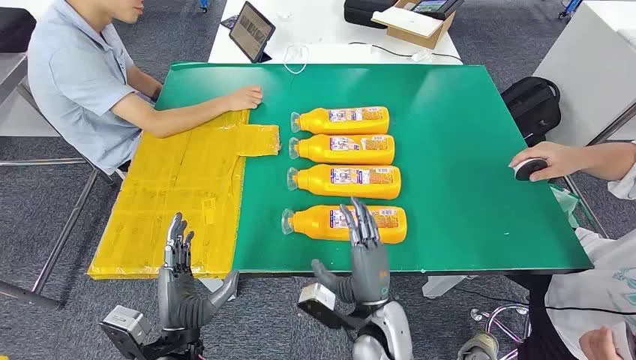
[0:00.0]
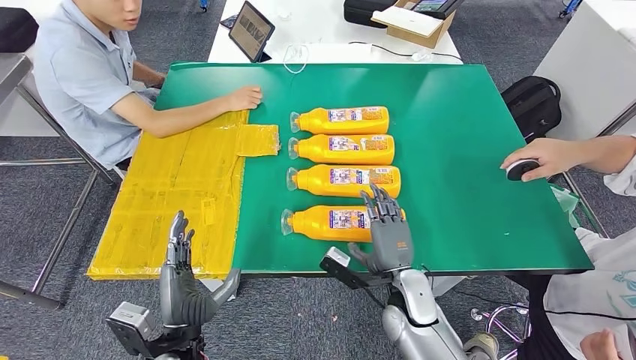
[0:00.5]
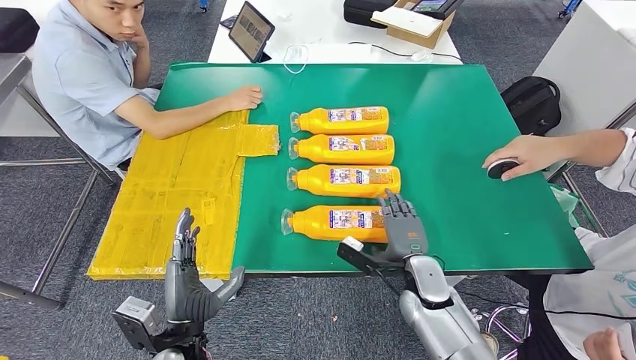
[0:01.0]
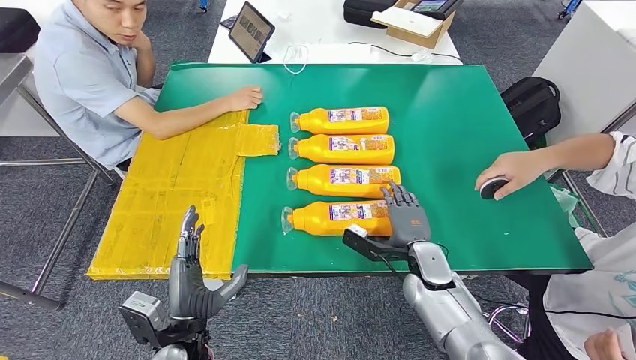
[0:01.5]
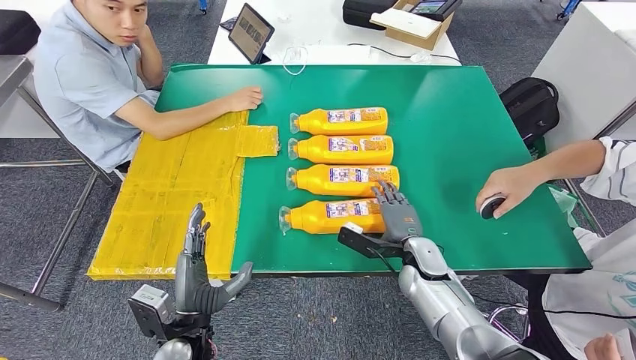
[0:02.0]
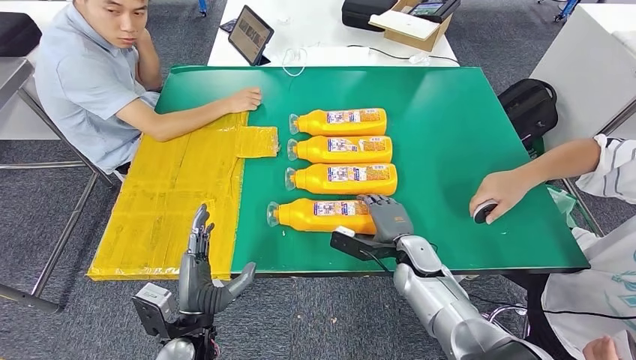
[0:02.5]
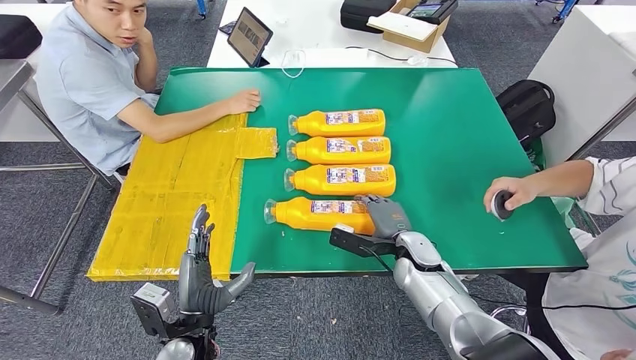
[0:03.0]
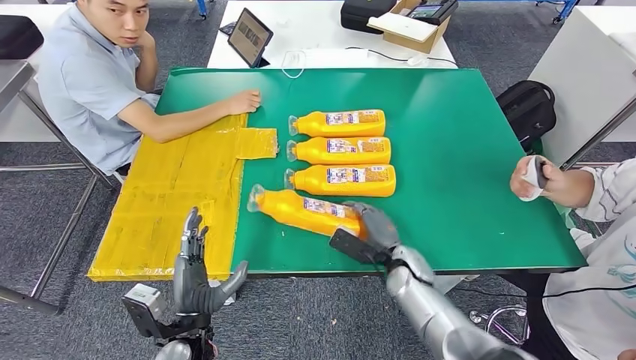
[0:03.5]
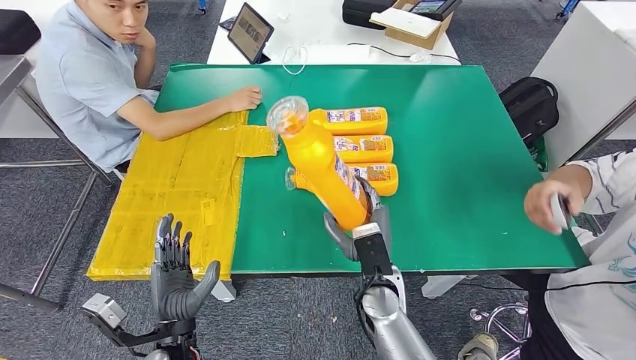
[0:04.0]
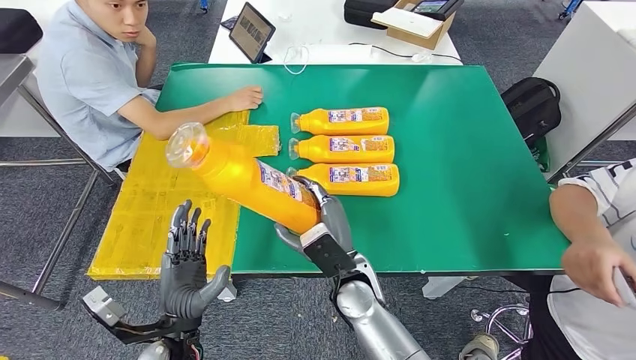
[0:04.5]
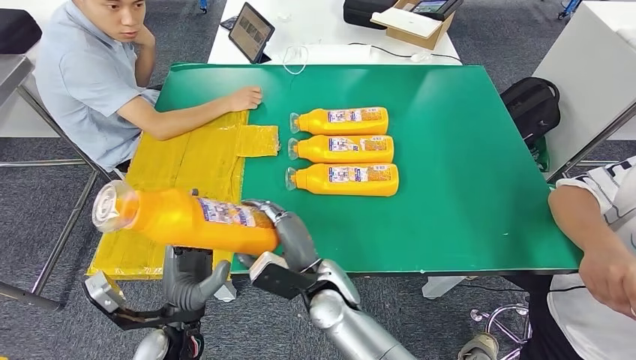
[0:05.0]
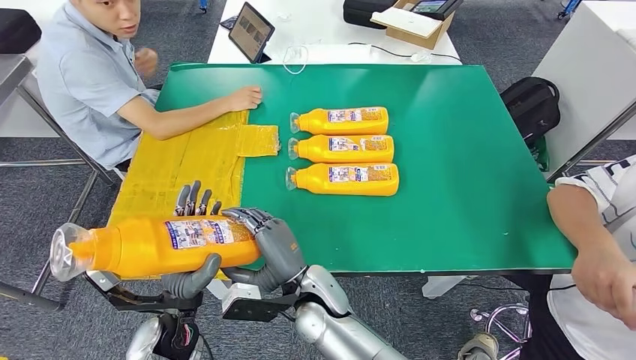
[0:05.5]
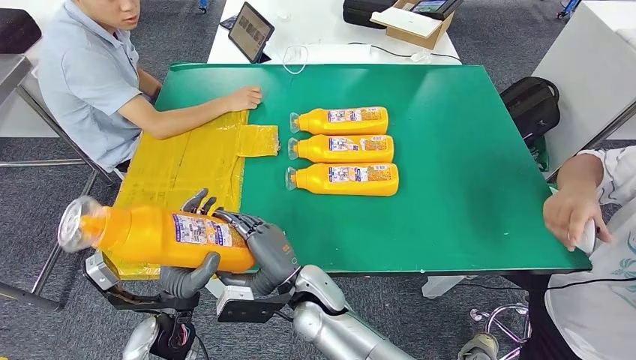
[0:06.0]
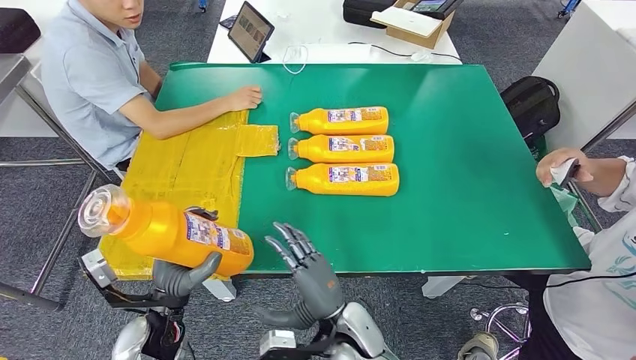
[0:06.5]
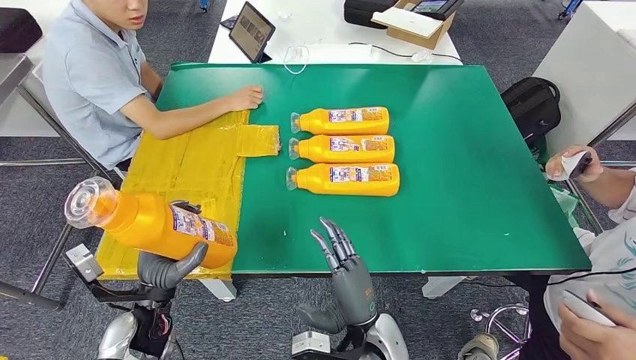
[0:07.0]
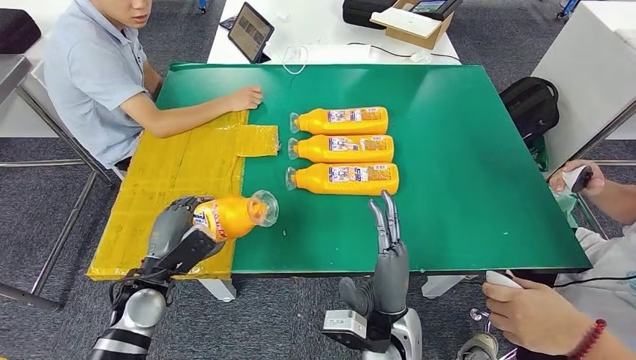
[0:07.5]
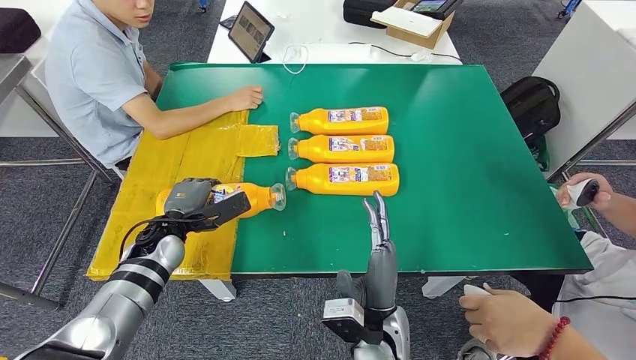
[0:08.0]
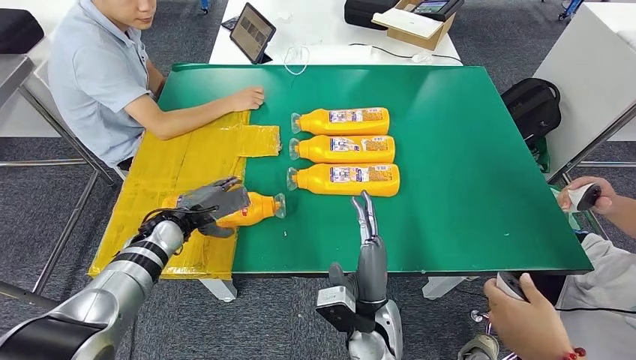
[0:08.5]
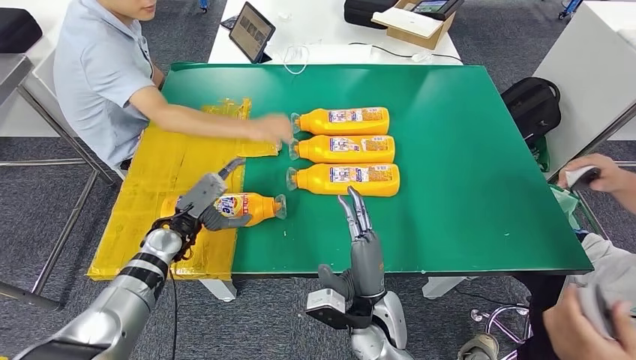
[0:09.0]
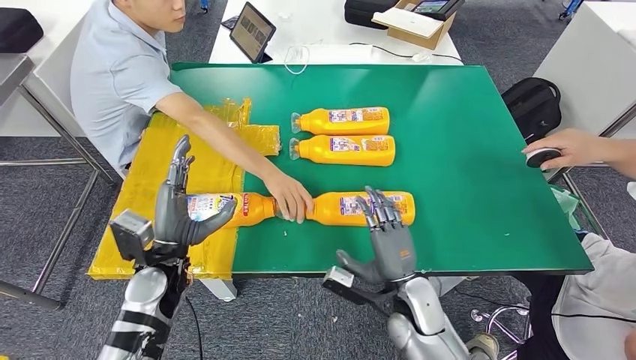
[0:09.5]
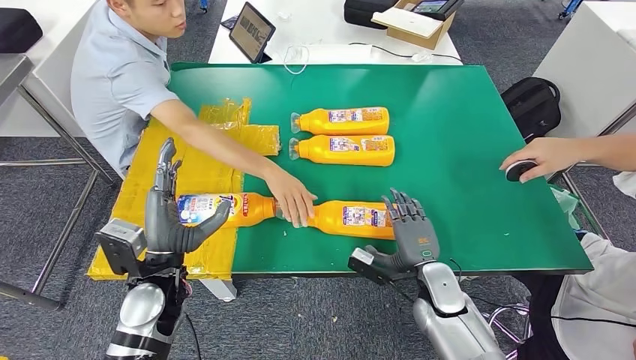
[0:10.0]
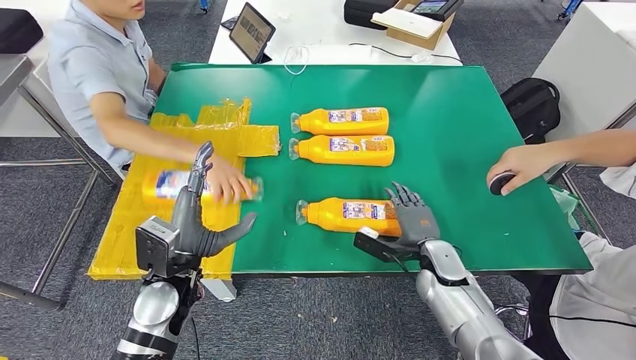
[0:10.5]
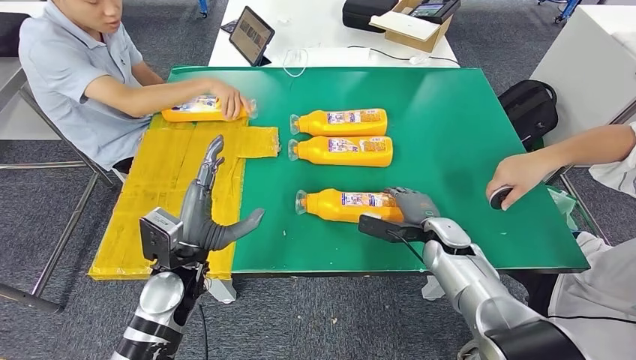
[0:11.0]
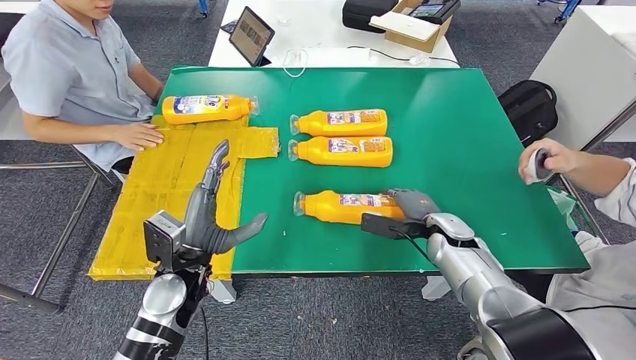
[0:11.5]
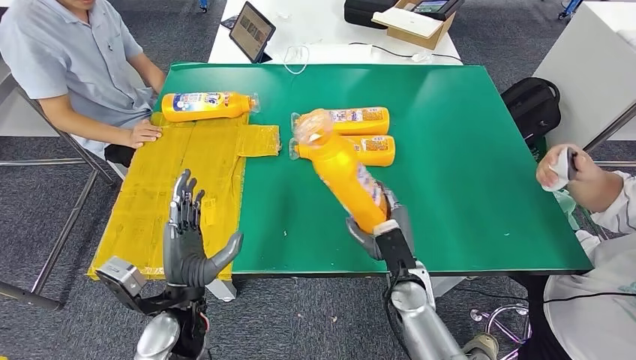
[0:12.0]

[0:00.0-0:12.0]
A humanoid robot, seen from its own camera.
Step, 0:00.0 to 0:06.0: Take the bottle from the table.
Step, 0:06.5 to 0:09.0: Flip the bottle to face forward.
0:04.0 to 0:06.0: The right hand shifts some 15 cm to the left.

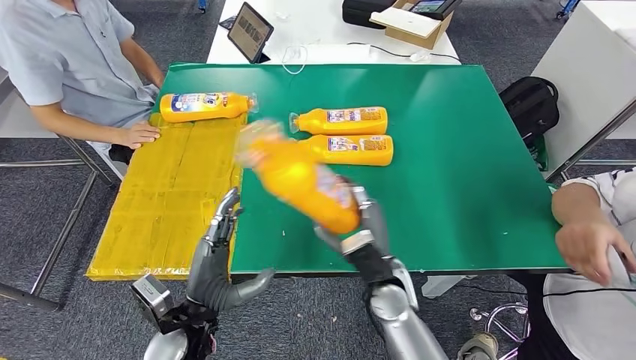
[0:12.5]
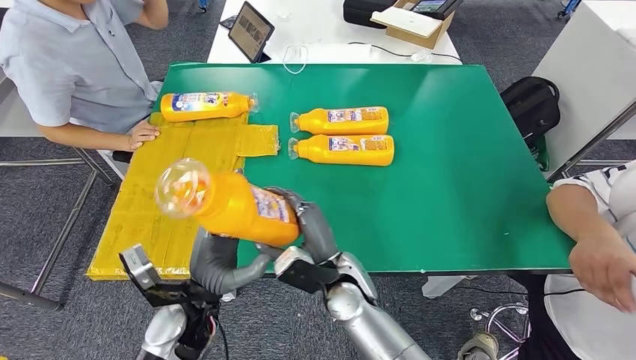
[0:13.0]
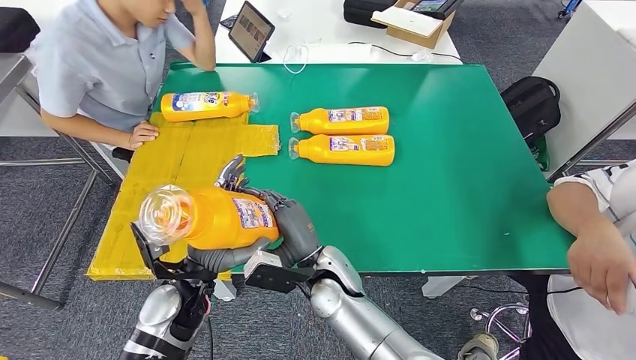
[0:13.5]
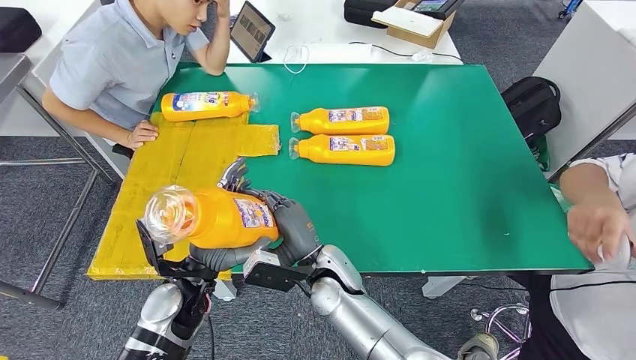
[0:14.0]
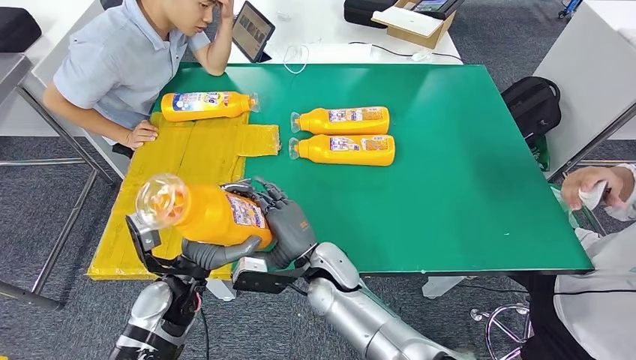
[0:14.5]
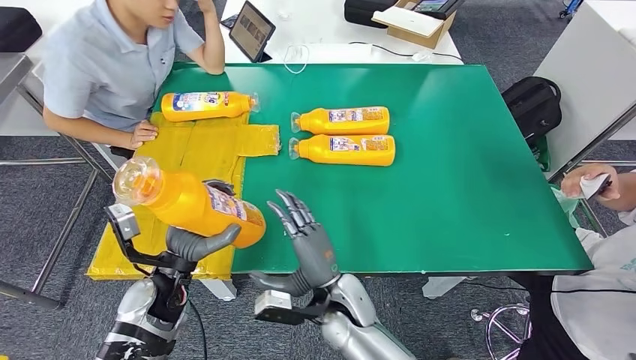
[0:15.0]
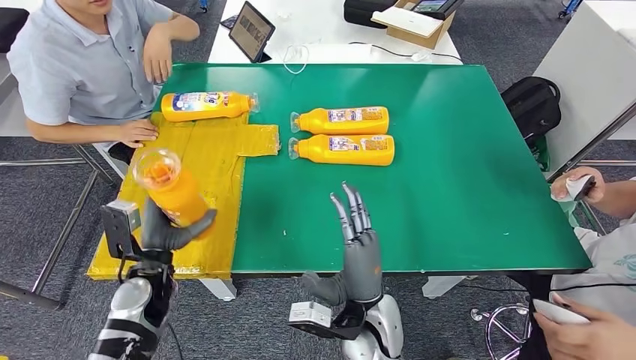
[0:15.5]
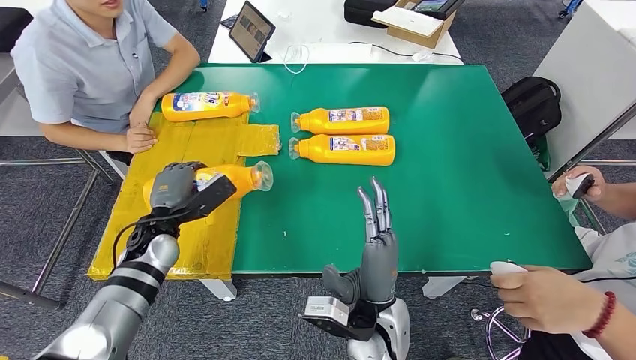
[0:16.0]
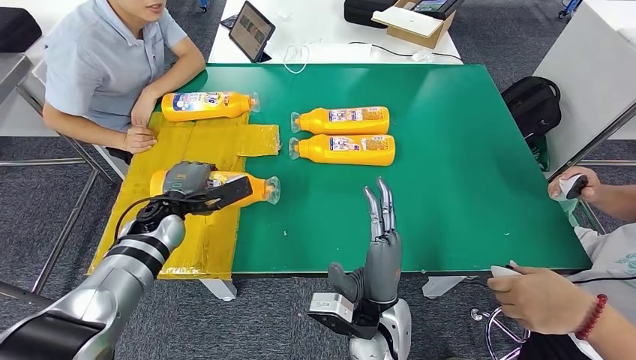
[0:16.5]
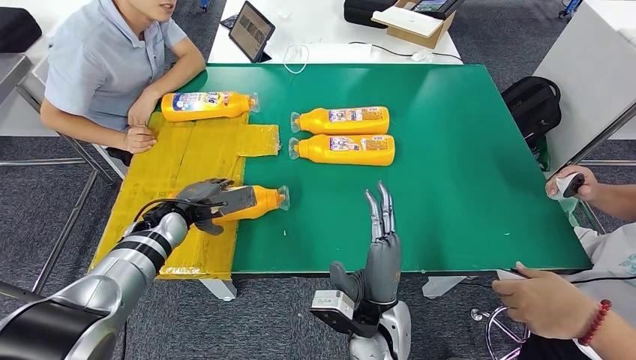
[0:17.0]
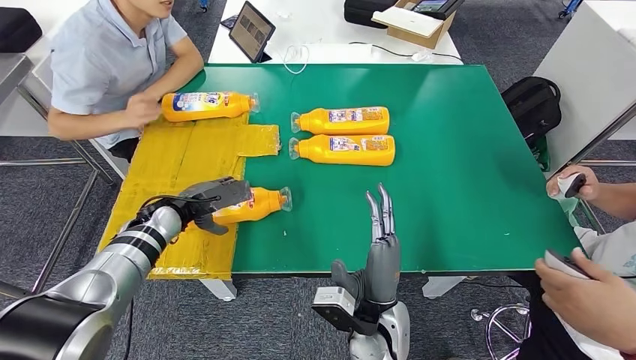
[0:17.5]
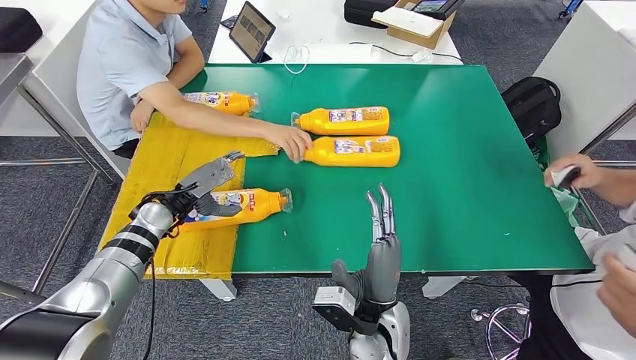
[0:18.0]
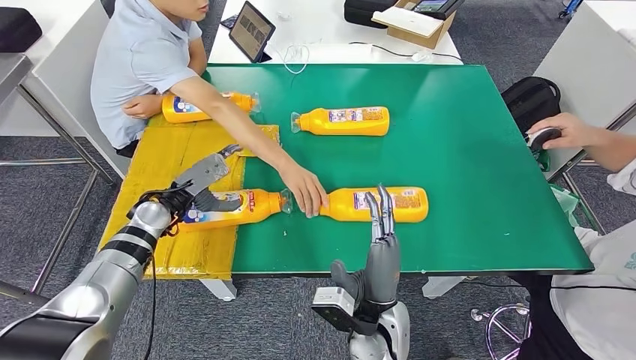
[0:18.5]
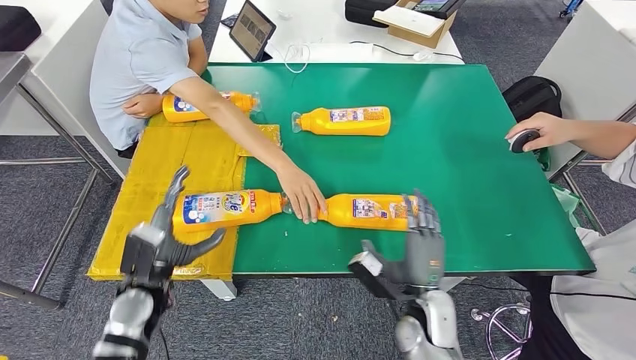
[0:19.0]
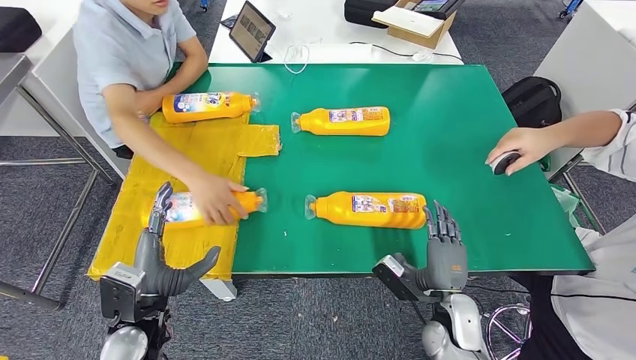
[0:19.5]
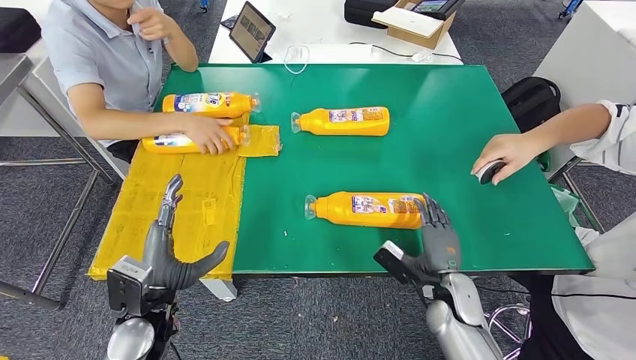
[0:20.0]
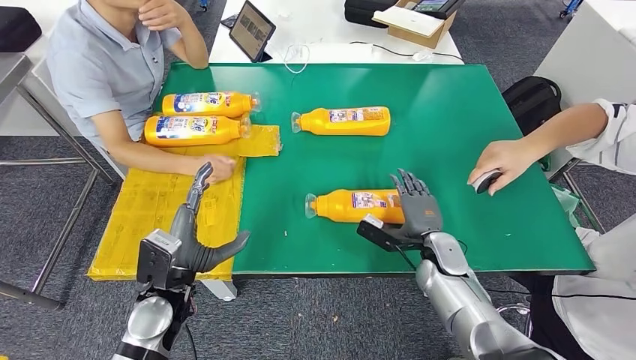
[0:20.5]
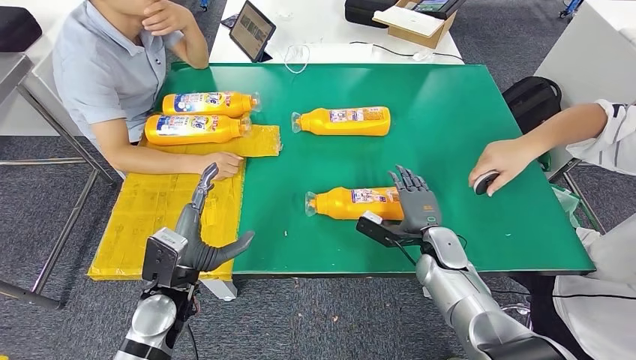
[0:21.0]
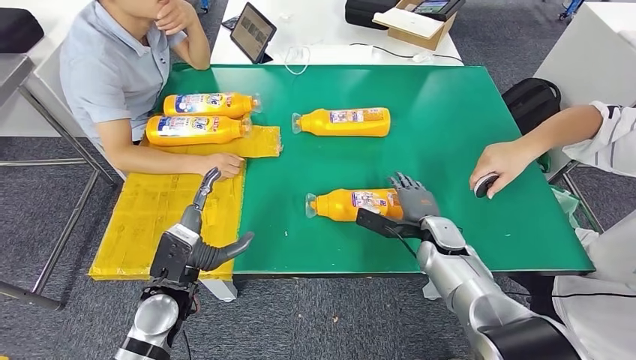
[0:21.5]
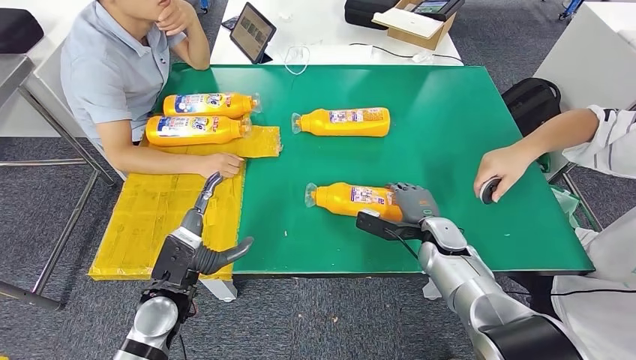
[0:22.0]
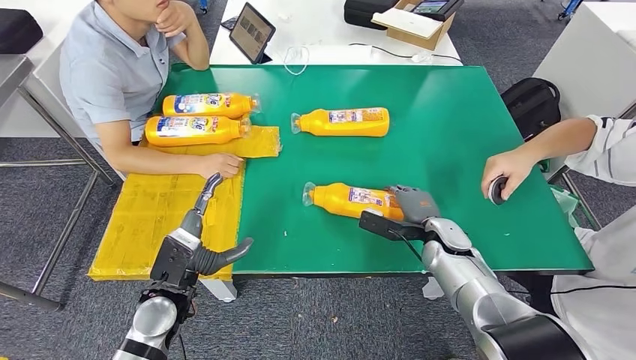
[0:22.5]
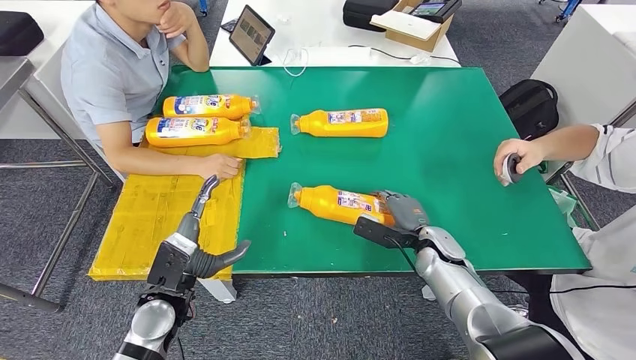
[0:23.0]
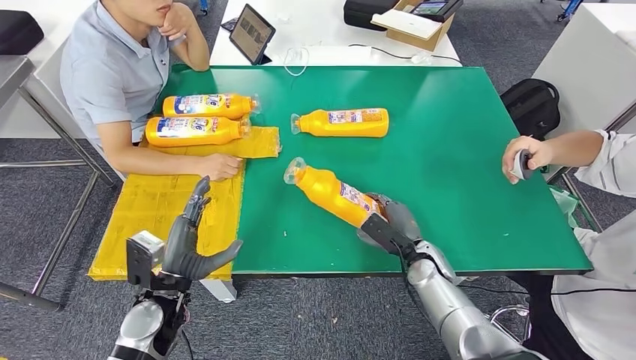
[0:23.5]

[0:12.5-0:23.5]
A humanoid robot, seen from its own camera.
Step, 0:14.5 to 0:18.5: Flip the bottle to face forward.
0:21.5 to 0:23.5: The right hand changes place by approximately 5 cm.
